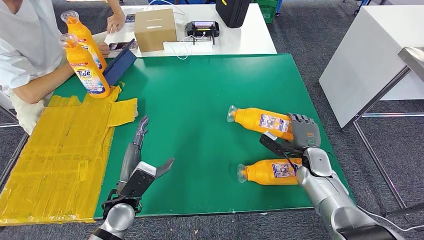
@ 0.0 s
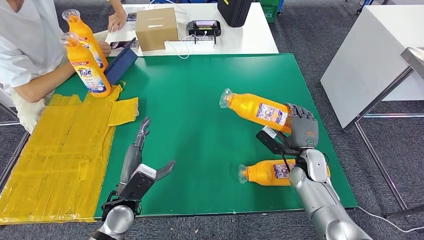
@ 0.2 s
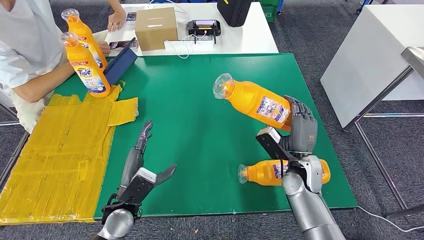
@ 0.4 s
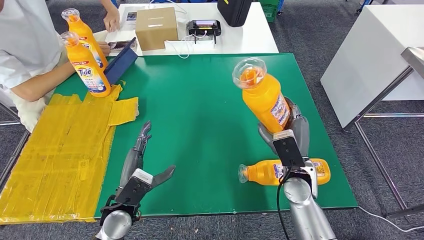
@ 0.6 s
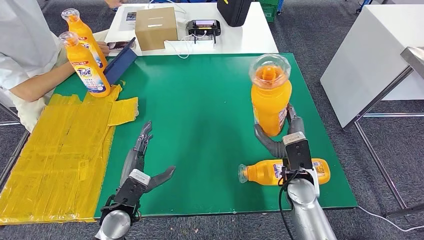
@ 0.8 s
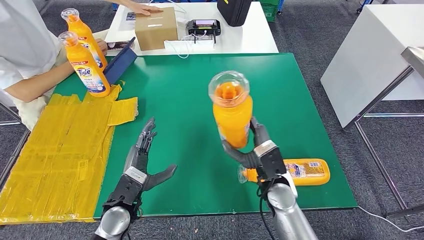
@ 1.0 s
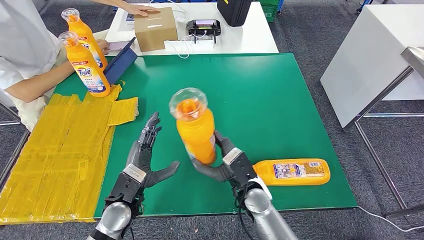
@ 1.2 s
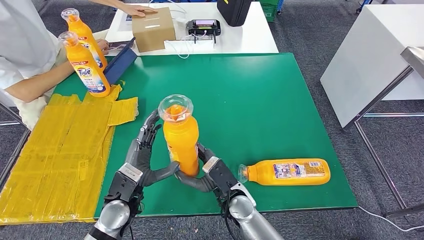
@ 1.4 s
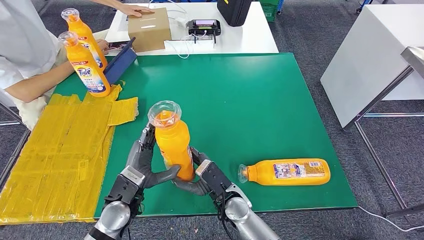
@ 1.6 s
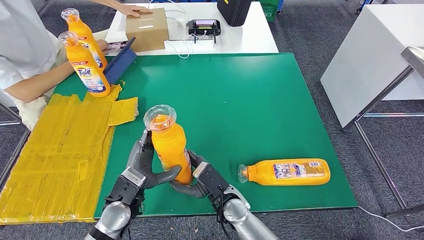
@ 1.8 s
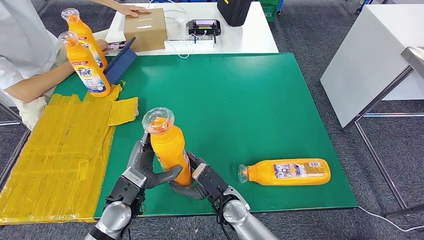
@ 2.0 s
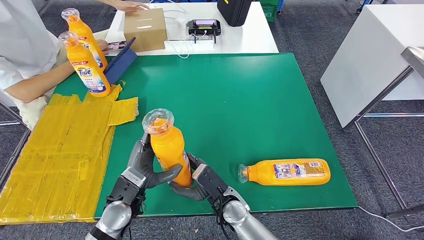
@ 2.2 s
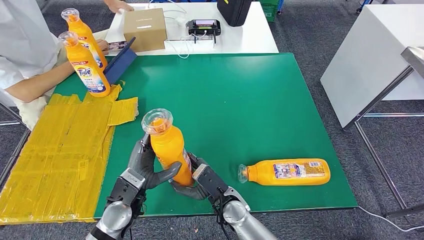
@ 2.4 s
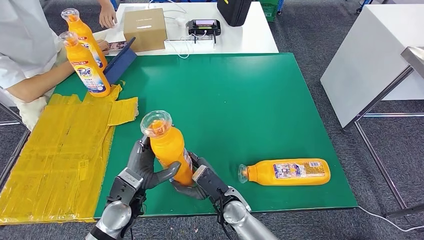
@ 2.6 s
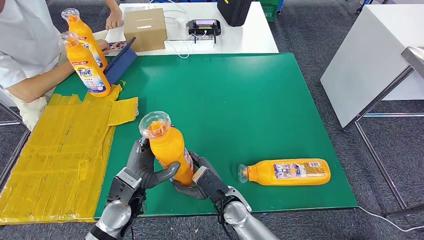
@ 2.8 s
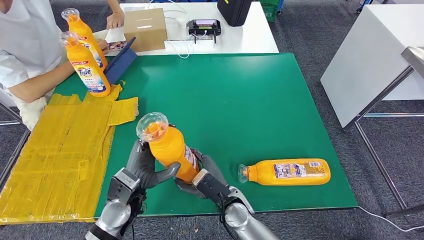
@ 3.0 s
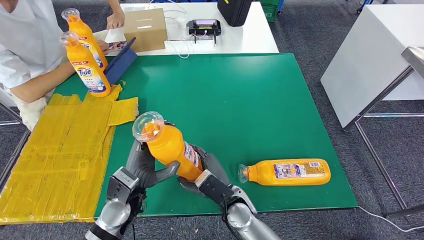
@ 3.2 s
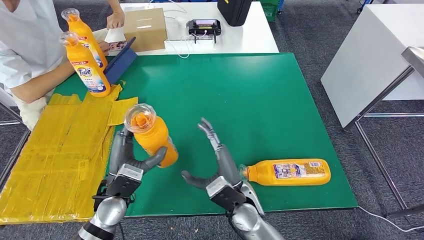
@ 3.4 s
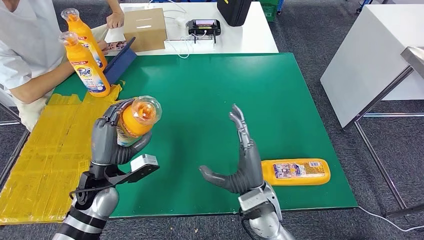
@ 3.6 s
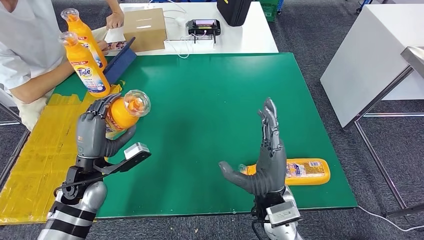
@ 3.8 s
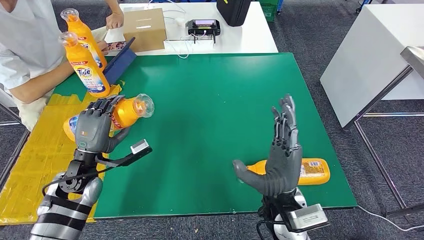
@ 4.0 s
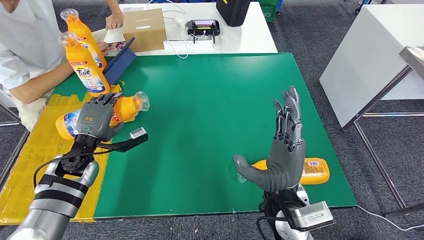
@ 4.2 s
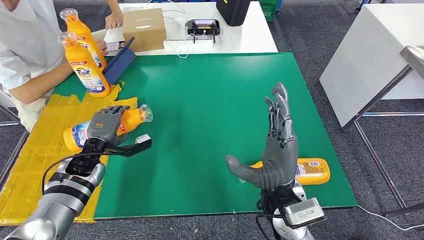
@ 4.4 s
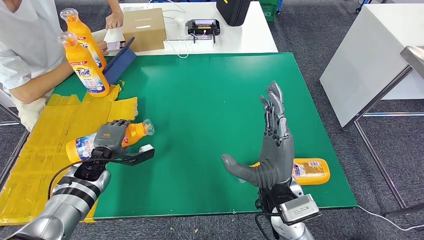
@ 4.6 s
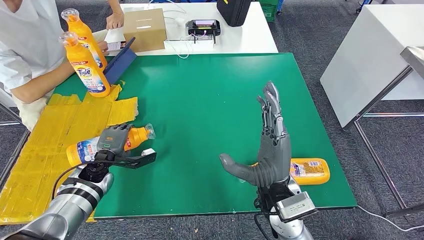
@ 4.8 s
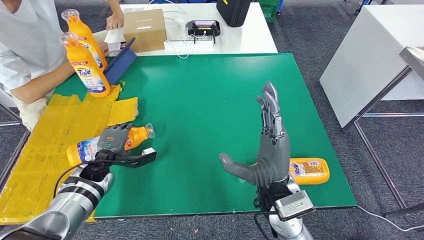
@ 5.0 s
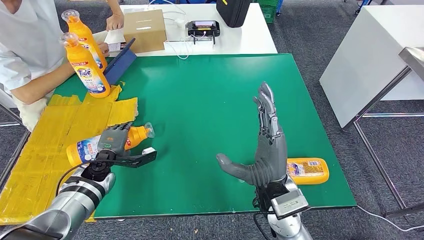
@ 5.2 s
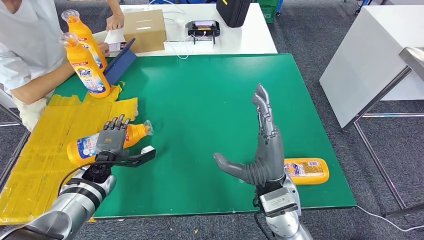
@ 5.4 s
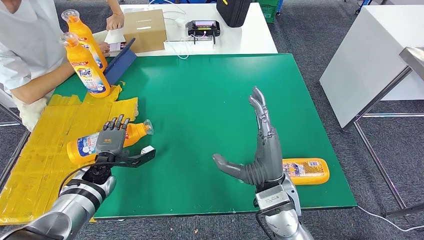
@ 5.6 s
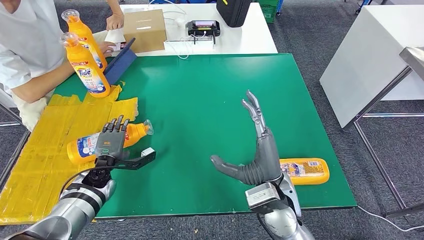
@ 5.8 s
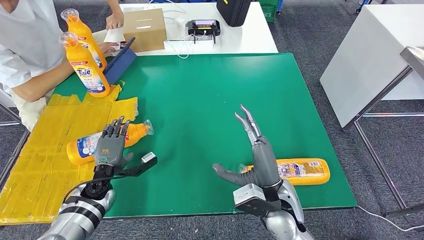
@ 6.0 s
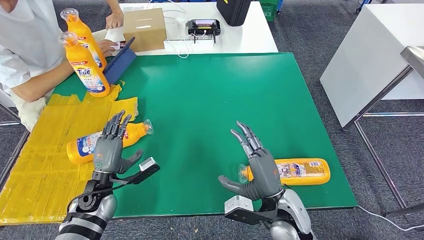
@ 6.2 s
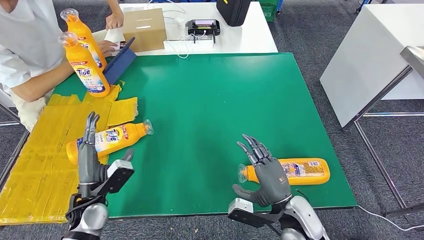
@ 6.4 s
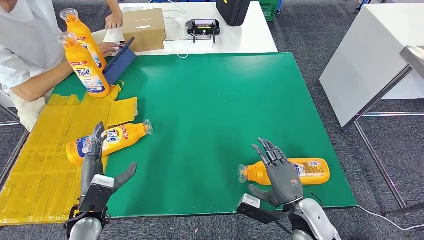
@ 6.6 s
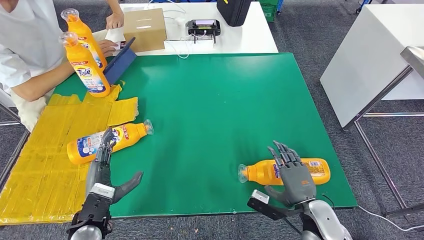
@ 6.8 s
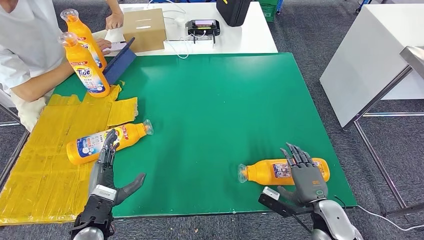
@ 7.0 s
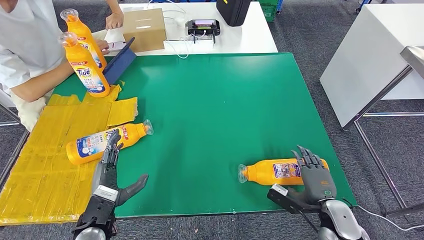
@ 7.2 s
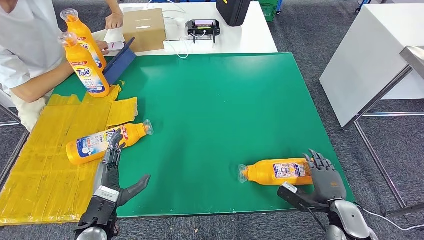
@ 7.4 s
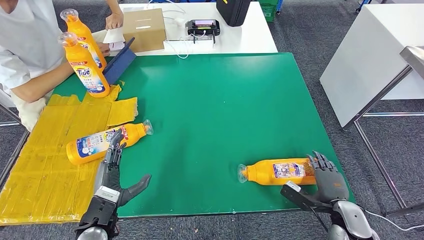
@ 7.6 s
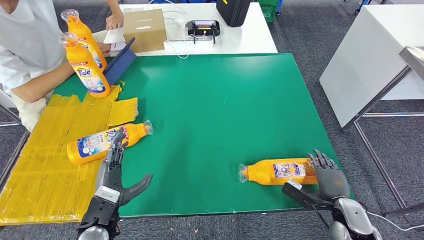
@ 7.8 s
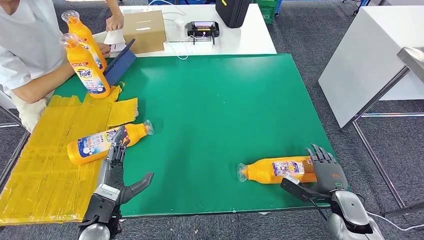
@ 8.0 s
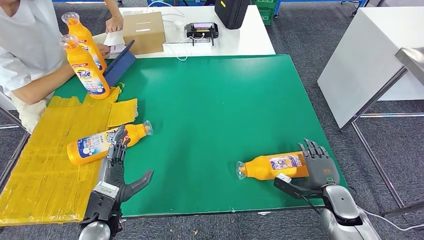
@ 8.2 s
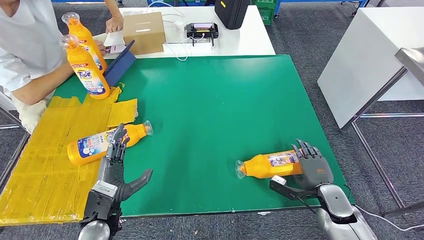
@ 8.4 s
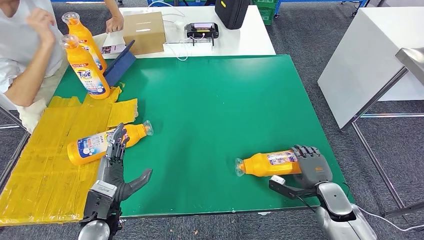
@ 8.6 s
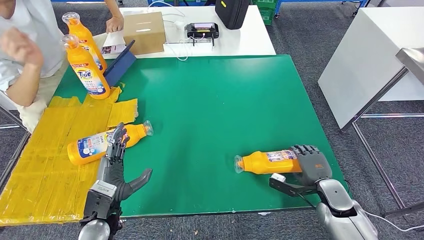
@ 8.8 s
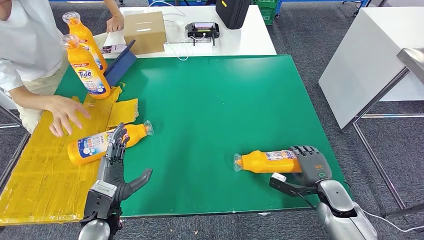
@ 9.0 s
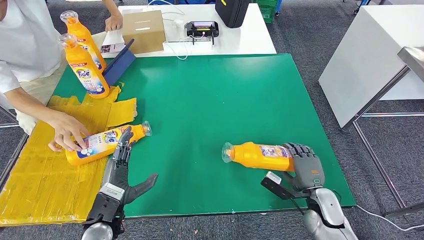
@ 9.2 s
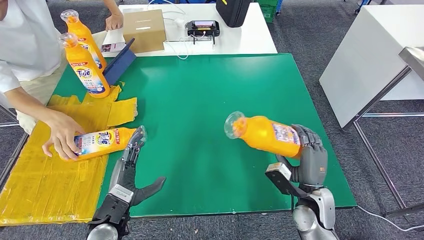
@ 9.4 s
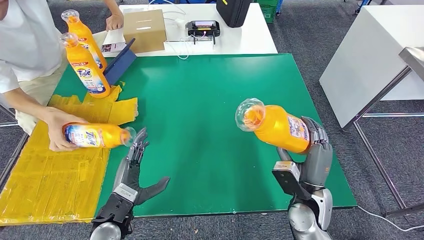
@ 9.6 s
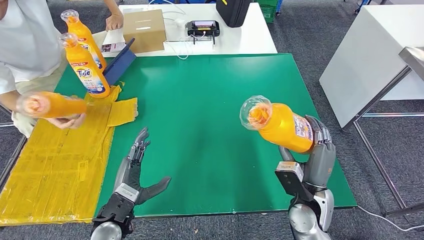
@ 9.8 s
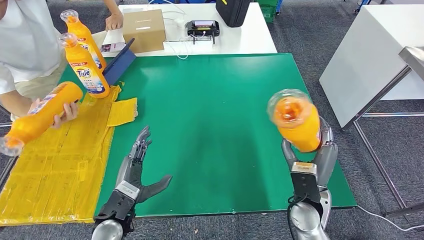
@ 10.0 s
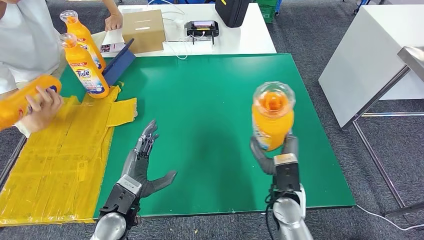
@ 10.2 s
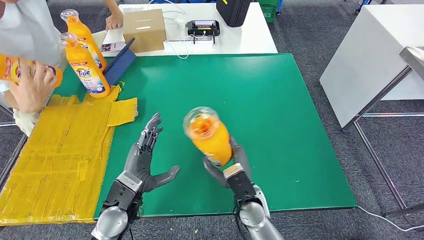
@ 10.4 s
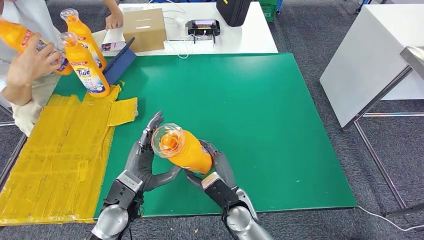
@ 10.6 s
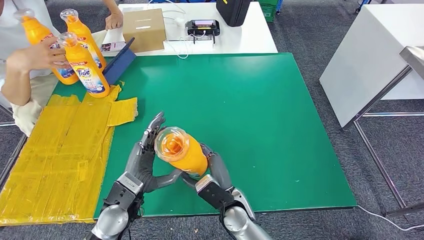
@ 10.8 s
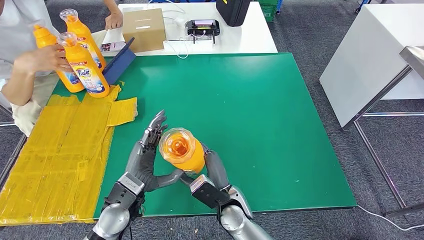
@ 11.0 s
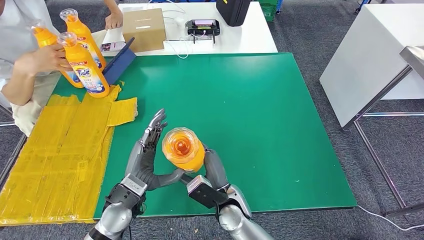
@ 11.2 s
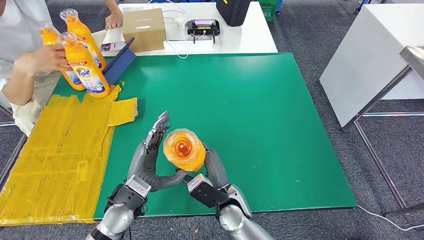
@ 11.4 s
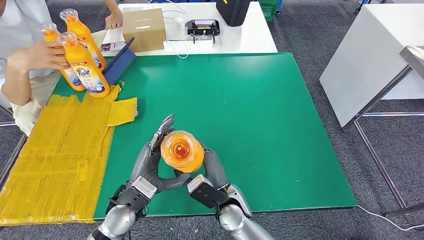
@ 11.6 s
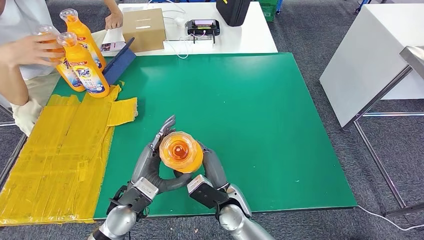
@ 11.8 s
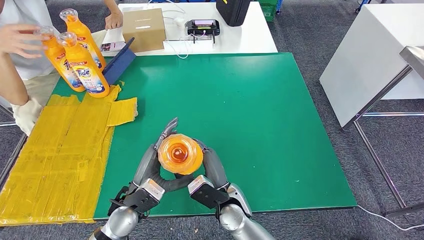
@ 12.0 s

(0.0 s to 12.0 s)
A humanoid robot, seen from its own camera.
Step, 0.0 s - 1.8 s: Pick up the fast-moving consumer goods bottle from the table.
Step, 2.8 s - 6.0 s: Flip the fast-moving consumer goods bottle to the front side.
Step, 8.6 s - 10.8 s: Pick up the fast-moving consumer goods bottle from the table.
1.6 s - 3.0 s: The hands stay close to where they were, moving slightly.
4.4 s - 6.0 s: The left hand is displaced downward by approximately 10 cm.
6.0 s - 7.6 s: The left hand shifts about 15 cm backward and upward; the right hand heads to the right and downward, covering roughly 25 cm.
7.6 s - 9.0 s: The right hand heads forward, covering approximately 5 cm.
10.4 s - 12.0 s: The right hand moves to the left, approximately 5 cm.

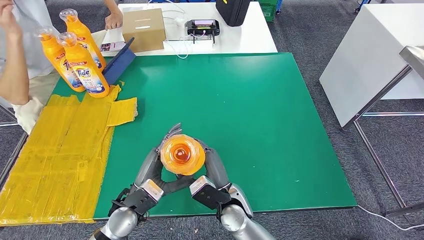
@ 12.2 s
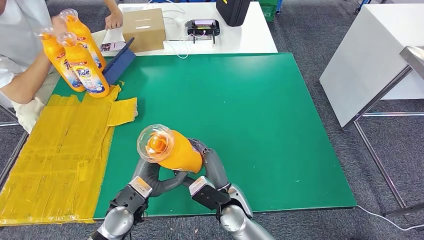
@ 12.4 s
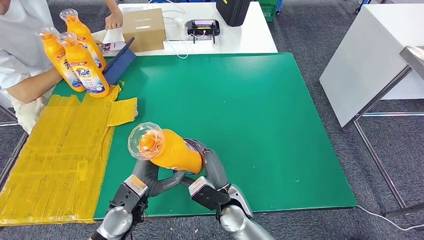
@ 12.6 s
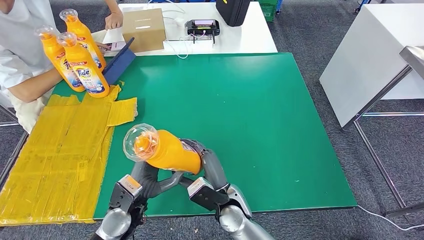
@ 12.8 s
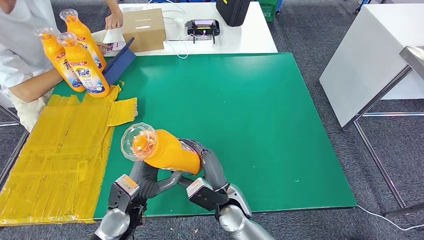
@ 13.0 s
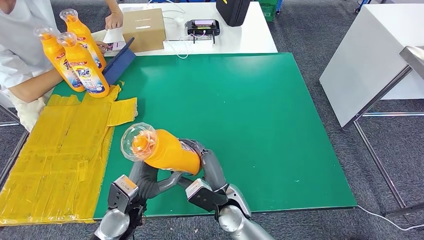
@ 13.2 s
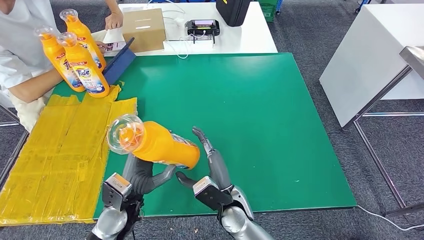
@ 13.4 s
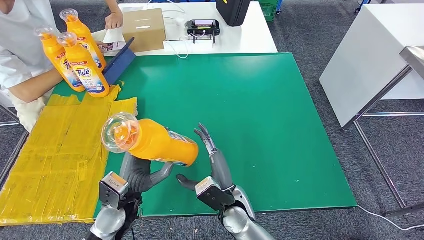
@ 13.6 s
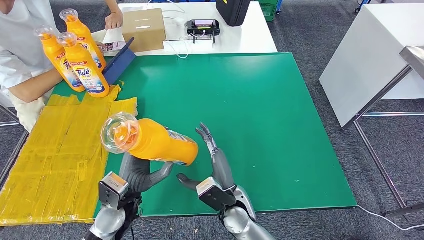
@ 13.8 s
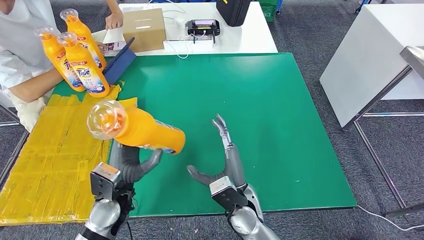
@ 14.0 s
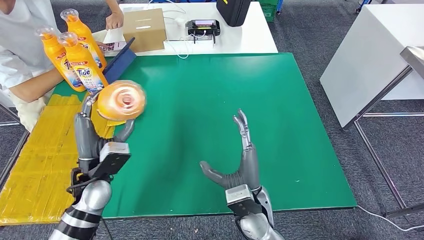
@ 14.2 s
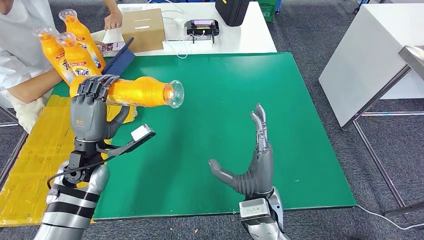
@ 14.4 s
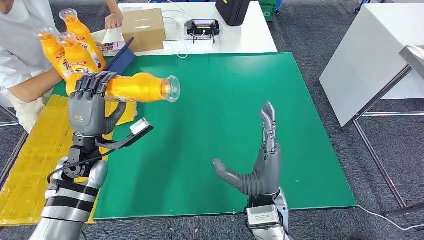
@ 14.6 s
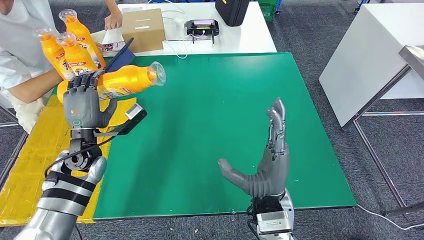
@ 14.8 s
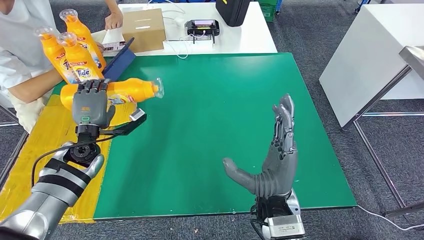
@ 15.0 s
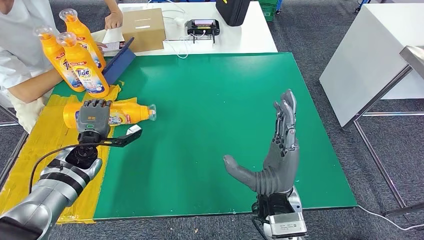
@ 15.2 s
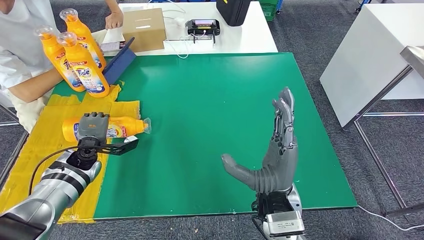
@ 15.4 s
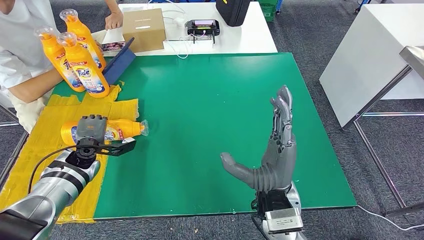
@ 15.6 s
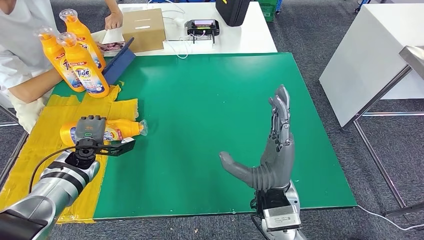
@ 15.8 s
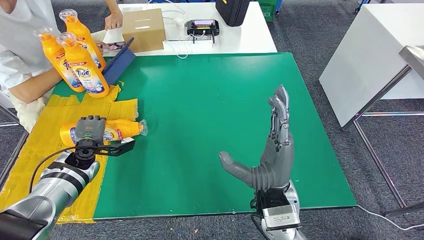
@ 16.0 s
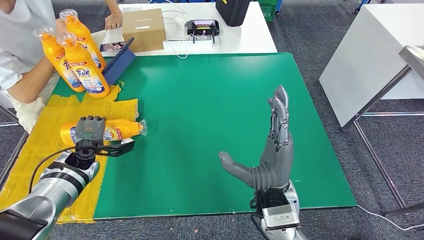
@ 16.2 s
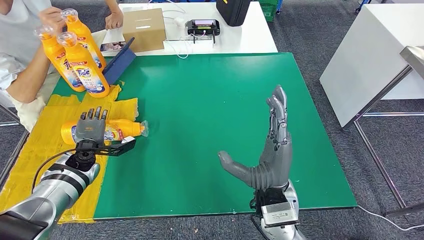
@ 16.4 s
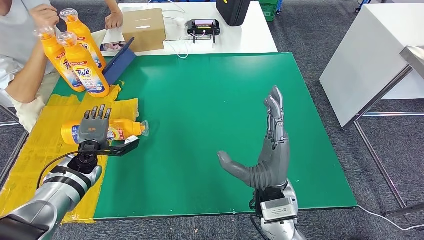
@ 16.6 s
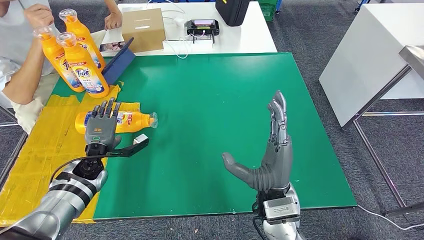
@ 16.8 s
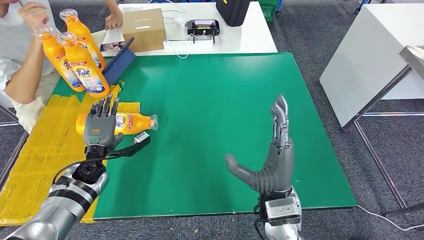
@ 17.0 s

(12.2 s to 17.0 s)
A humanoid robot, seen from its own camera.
Step, 13.4 s - 17.0 s: Flip the fast-moving consumer goods bottle to the front side.
12.2 s - 13.8 s: The hands move only a little.
13.8 s - 15.4 s: The right hand heads upward and to the right, covering roughly 15 cm, while the left hand goes approximately 20 cm forward and to the left.
